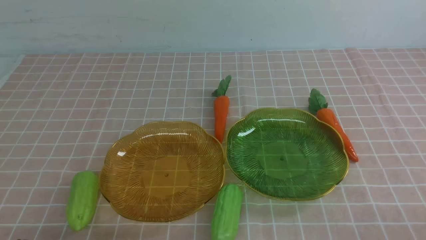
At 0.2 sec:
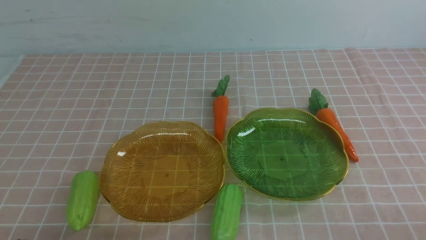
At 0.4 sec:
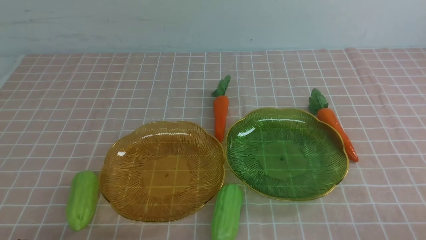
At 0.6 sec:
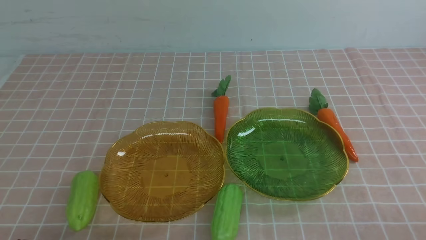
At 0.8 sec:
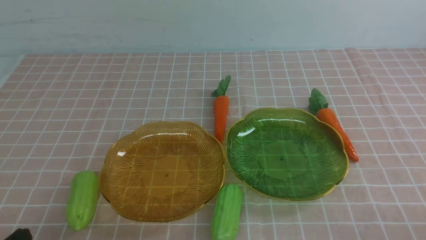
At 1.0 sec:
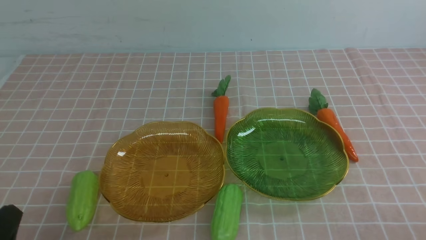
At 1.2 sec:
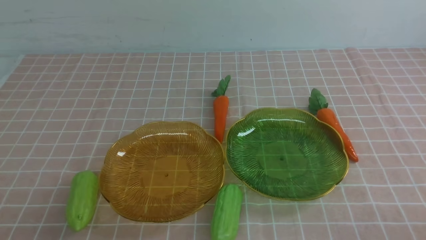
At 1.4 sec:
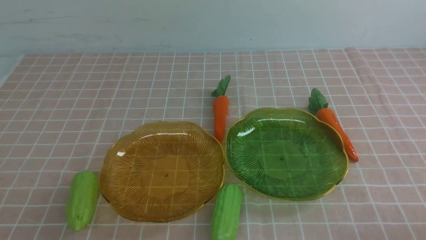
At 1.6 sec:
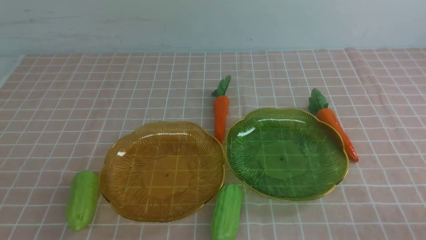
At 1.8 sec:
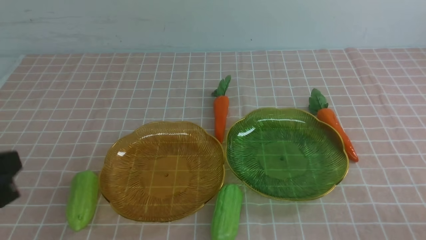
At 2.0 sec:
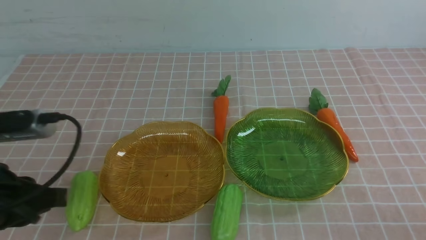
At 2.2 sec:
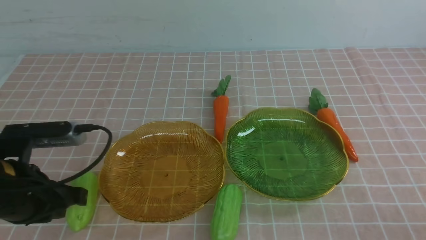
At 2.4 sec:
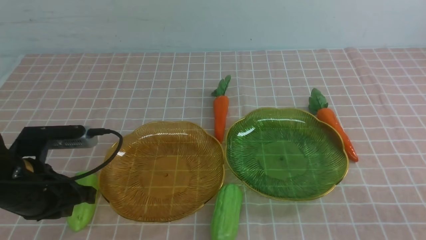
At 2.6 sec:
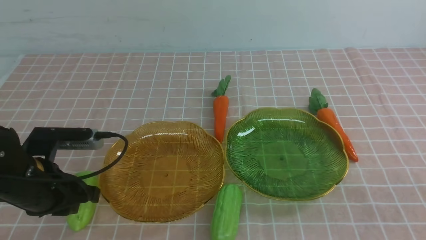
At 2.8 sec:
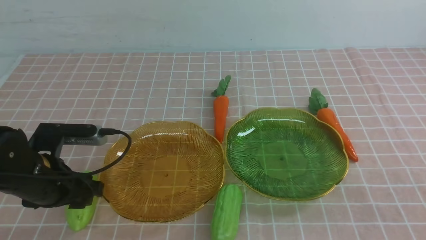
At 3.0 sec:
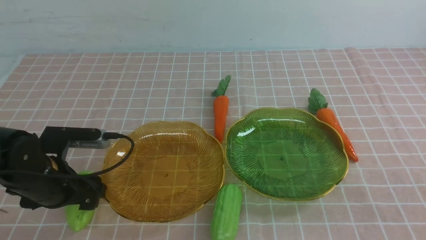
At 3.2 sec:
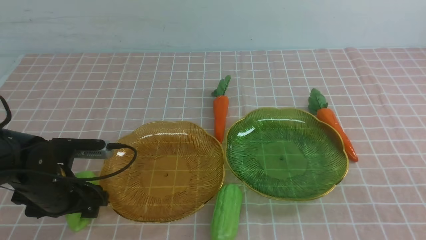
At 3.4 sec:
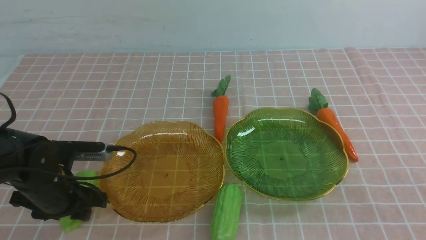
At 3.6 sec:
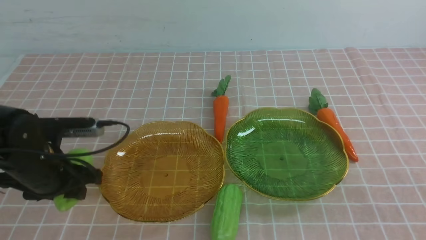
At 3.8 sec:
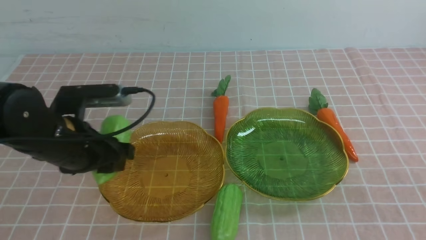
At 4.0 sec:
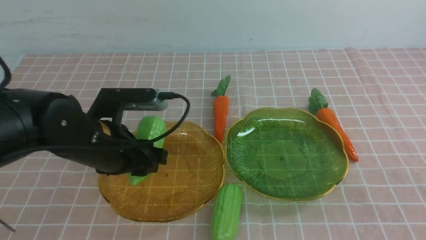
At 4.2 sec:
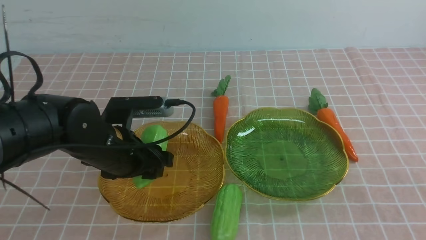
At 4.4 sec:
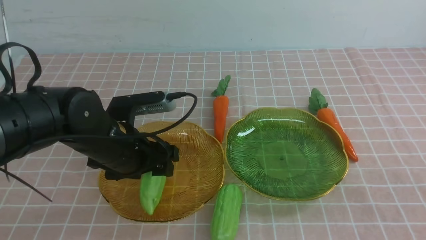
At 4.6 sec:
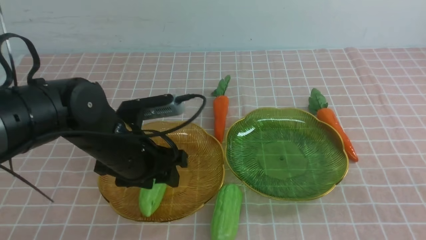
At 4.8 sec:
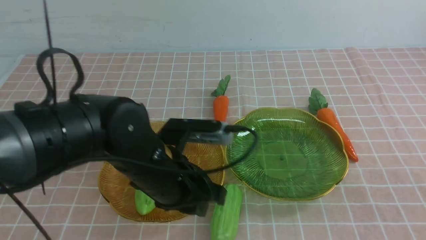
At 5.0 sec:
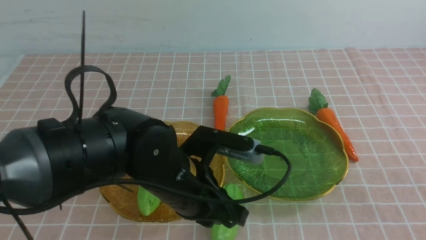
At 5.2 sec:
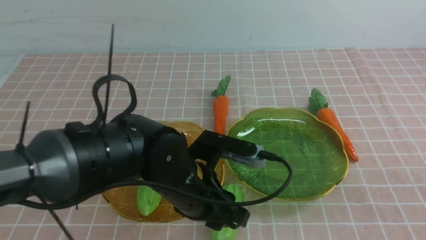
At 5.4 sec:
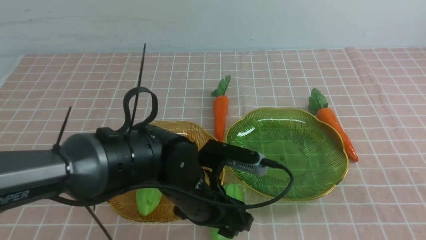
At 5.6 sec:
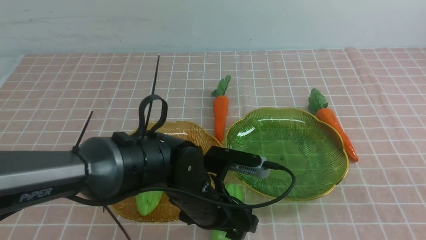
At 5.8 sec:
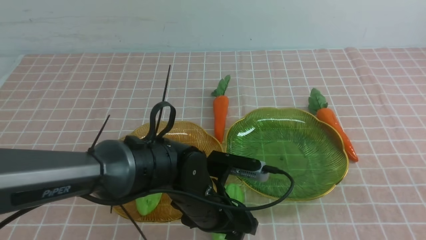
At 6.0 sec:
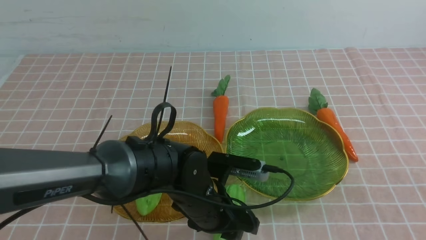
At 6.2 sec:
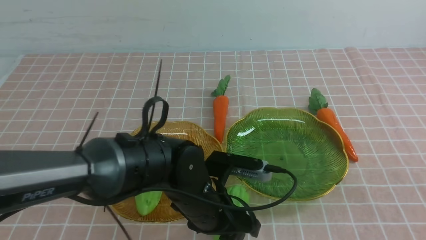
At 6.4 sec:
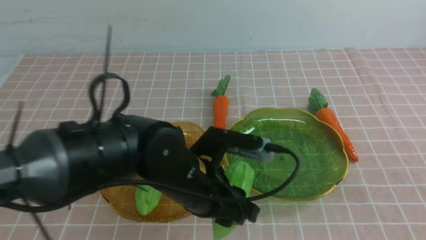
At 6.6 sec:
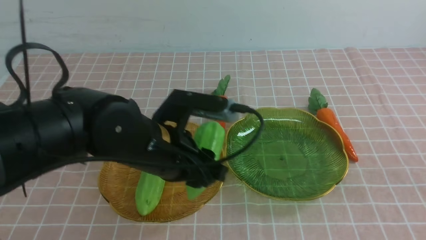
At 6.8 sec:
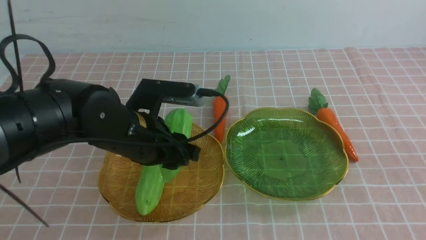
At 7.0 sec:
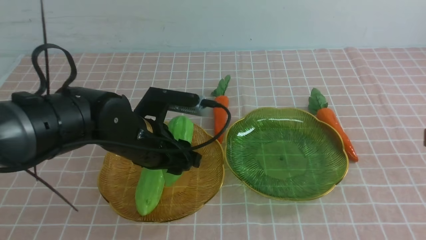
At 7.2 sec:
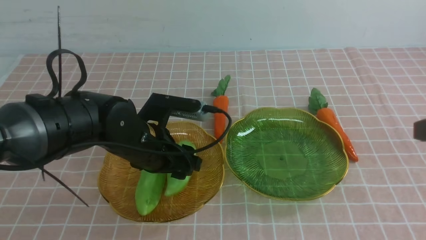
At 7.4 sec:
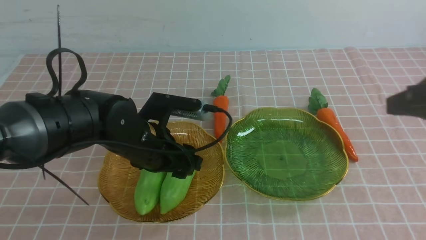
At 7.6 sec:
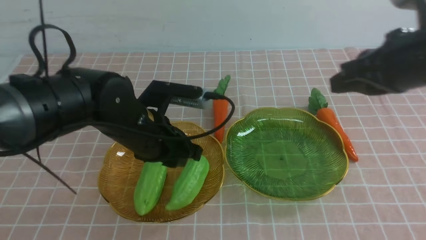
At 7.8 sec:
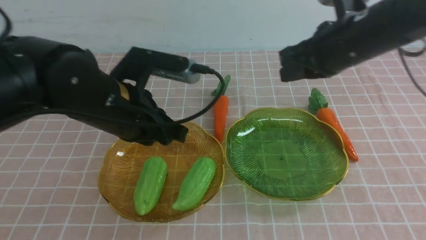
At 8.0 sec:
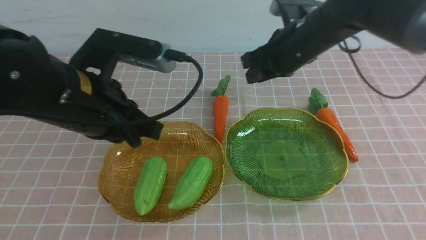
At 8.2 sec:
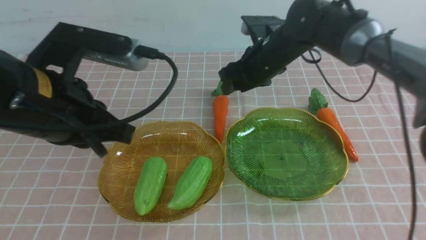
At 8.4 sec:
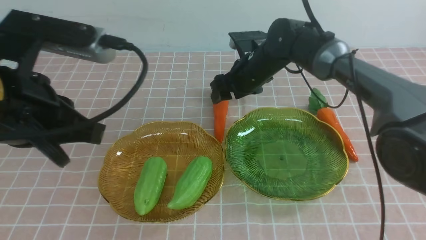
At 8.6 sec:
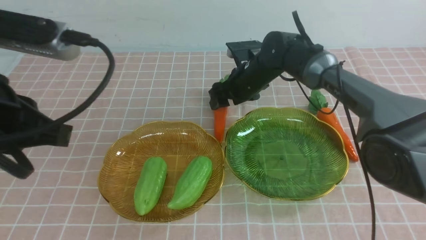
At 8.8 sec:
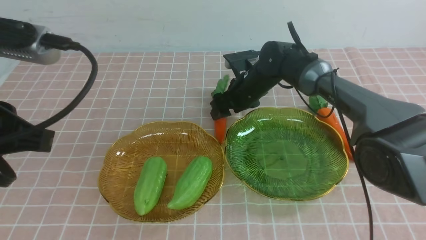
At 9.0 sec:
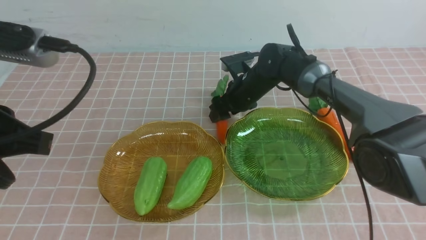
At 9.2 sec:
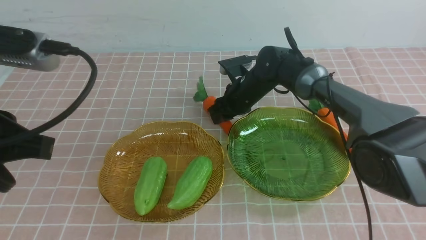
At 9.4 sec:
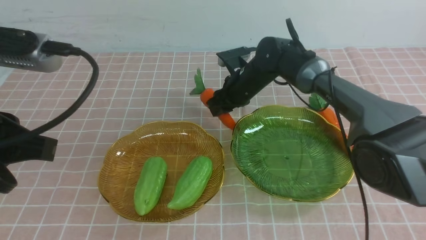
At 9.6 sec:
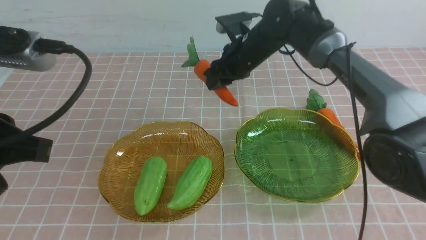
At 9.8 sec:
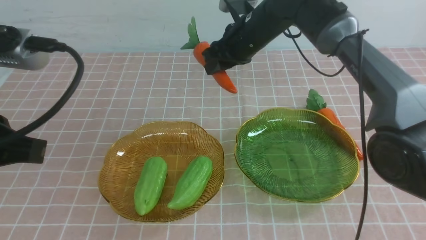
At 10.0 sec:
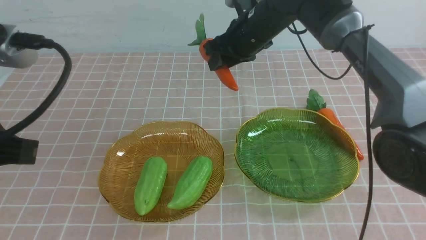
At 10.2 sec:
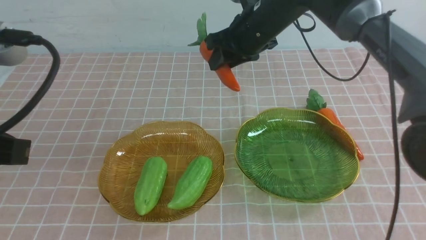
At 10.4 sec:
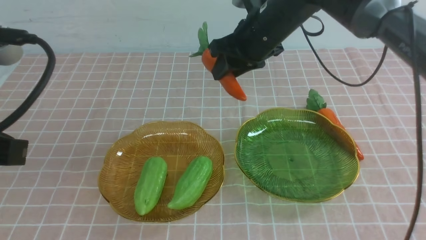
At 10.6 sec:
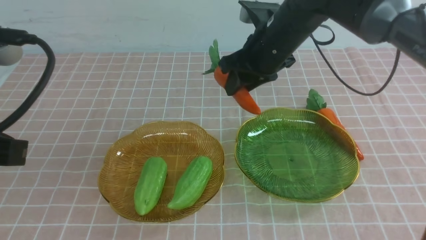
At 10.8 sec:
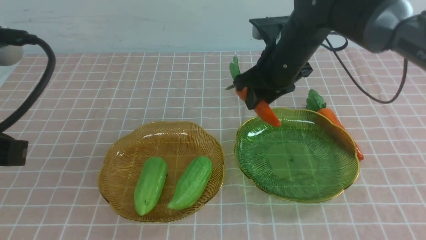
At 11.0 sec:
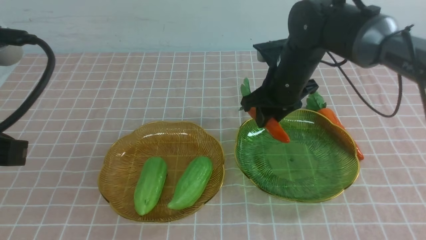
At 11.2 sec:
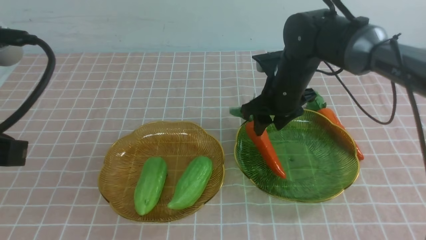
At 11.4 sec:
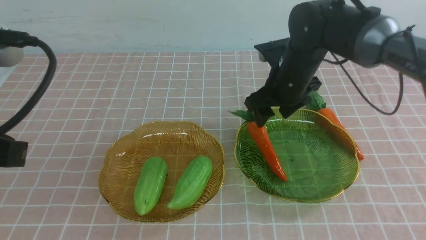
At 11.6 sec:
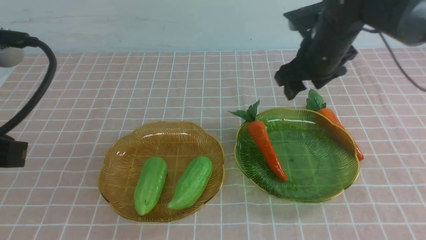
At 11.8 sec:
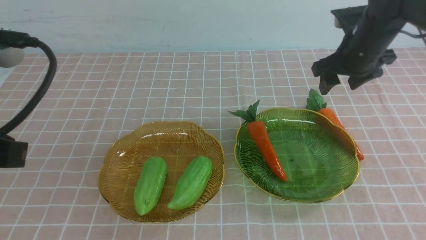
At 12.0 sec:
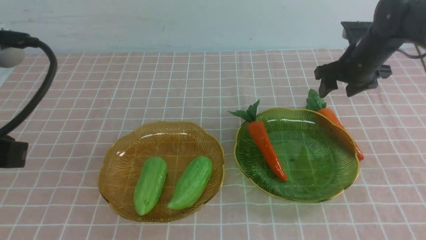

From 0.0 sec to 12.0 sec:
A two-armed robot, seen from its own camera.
Step, from 0.0 sec to 7.2 sec: use the left arm to grab a chayote and put it into the left plate.
From 1.6 sec to 3.0 sec: The left gripper shifts about 25 cm forward and downward, and opens up.
From 3.0 sec to 4.4 sec: The left gripper heads to the right, covering roughly 10 cm.
From 4.4 sec to 6.0 sec: The left gripper is displaced to the right by roughly 10 cm.
From 6.0 sec to 7.6 sec: The left gripper heads upward and to the left, covering roughly 15 cm, and closes its fingers. The right gripper goes about 30 cm forward.
From 7.6 sec to 9.0 sec: The left gripper heads backward, upward and to the left, covering some 15 cm; the right gripper travels downward, forward and to the left by roughly 25 cm, and opens up.
From 9.0 sec to 10.4 sec: The right gripper travels upward and backward by approximately 15 cm.
From 10.4 sec to 12.0 sec: The right gripper goes roughly 15 cm to the right and downward, and opens.

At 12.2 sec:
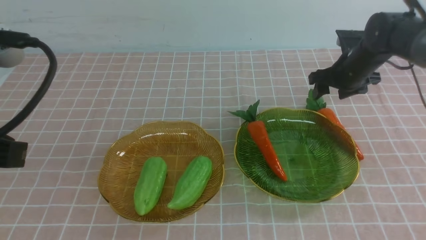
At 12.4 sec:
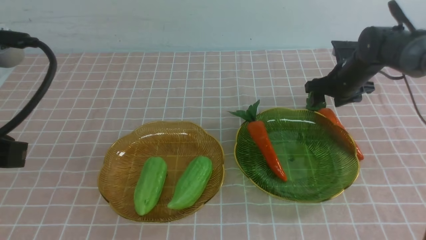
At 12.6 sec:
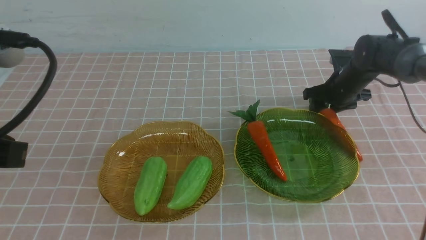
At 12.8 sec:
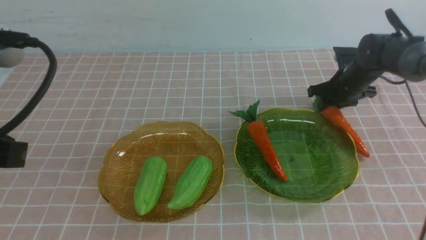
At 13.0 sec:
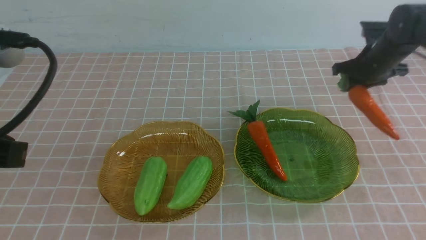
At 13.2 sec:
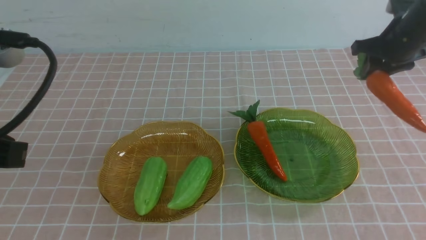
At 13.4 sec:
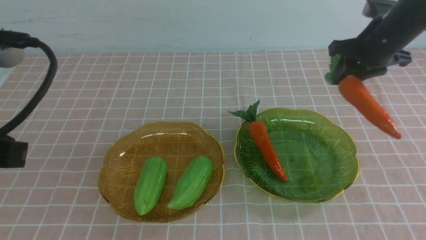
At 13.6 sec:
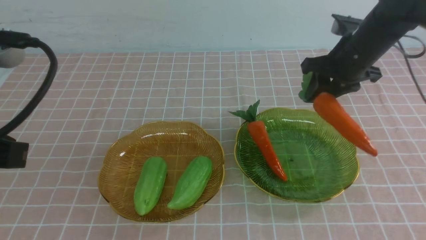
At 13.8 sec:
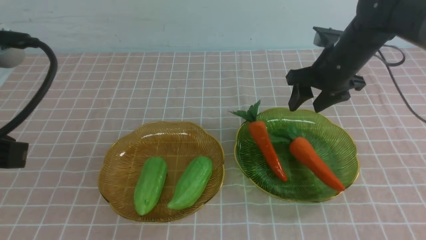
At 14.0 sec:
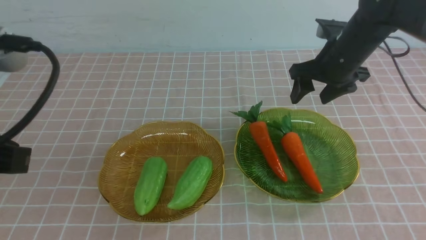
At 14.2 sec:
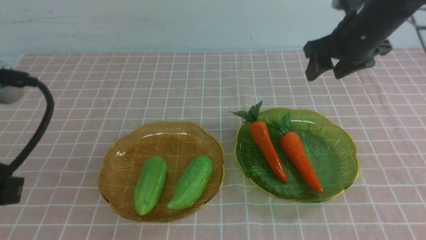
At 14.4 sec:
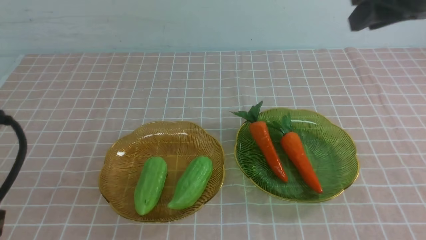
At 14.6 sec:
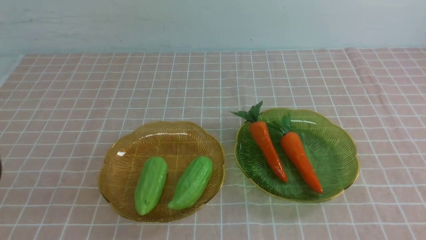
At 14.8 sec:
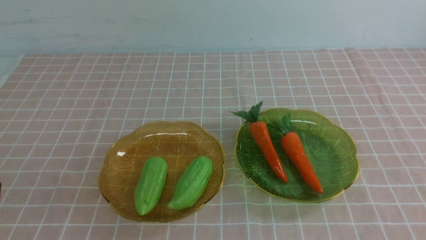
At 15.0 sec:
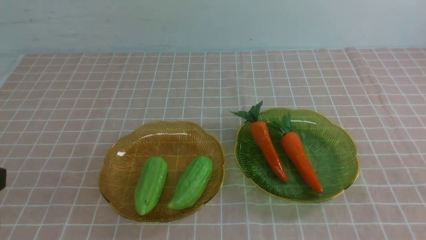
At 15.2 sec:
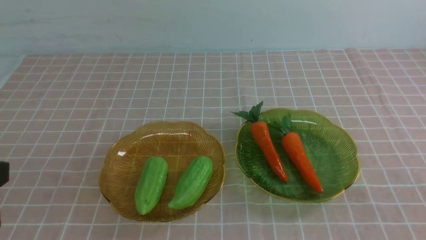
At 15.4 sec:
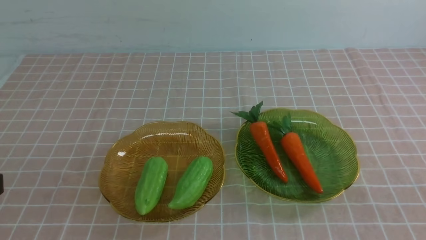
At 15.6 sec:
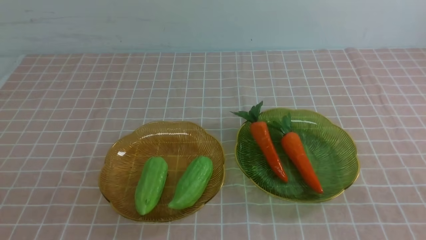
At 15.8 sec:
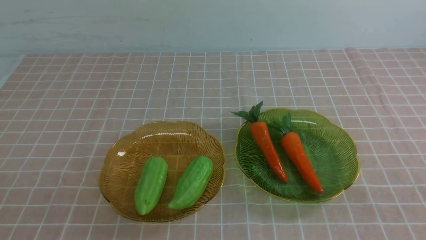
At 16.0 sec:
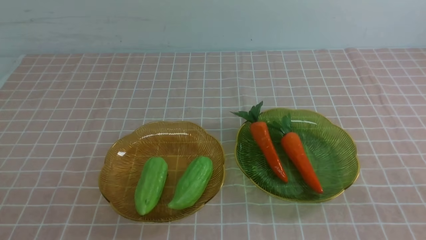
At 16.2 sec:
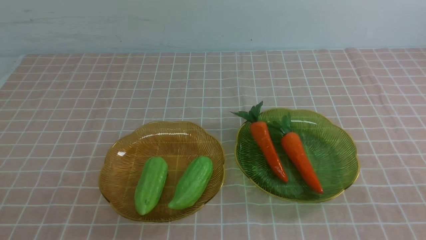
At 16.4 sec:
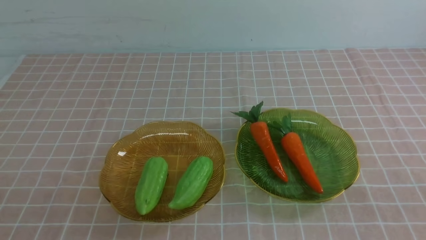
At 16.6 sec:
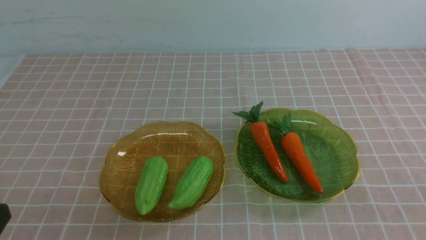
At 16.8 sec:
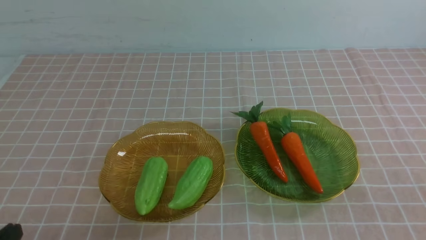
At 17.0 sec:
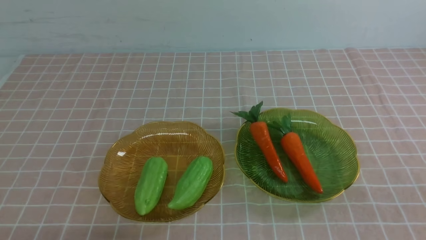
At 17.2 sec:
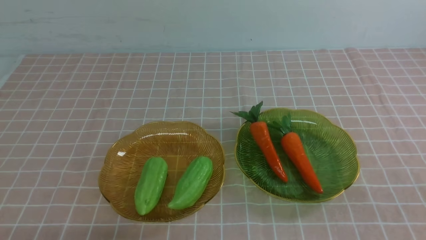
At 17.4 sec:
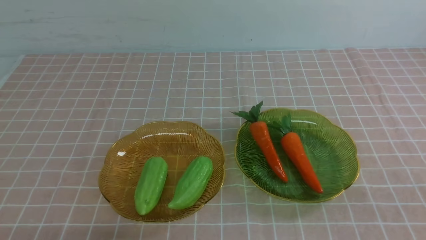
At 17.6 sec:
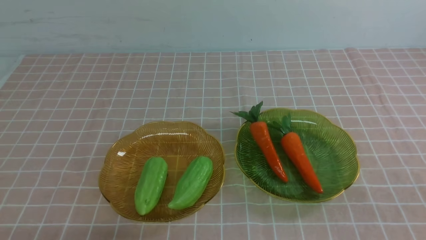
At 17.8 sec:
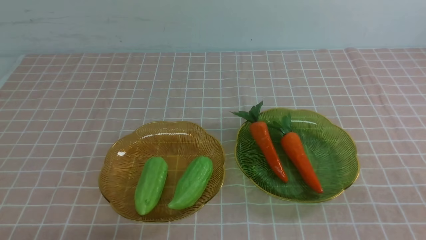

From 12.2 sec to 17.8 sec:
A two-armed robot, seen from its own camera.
From 12.2 sec to 13.6 sec: The right gripper moves upward and backward, some 10 cm.
From 13.6 sec to 15.0 sec: The right gripper is displaced backward by approximately 40 cm, and closes. The left gripper goes approximately 5 cm backward.
